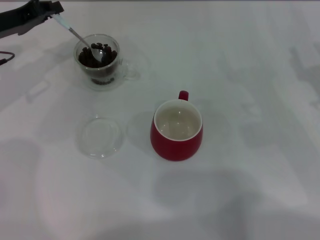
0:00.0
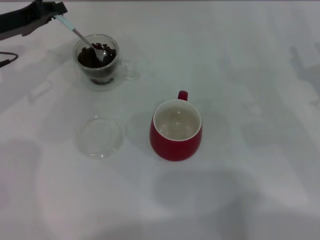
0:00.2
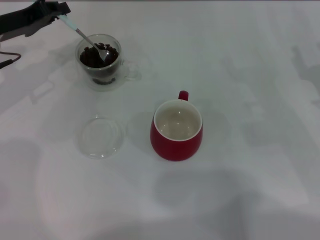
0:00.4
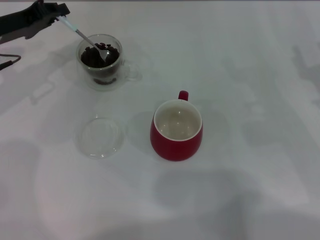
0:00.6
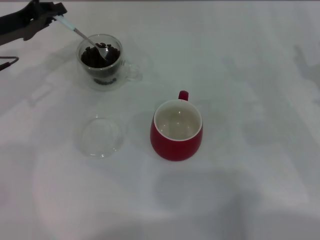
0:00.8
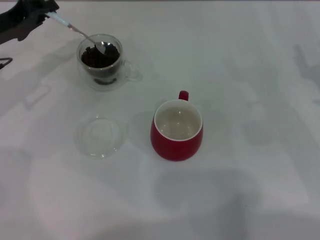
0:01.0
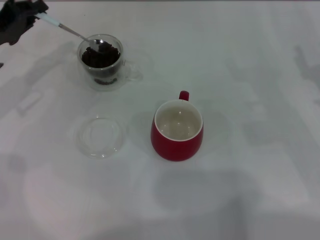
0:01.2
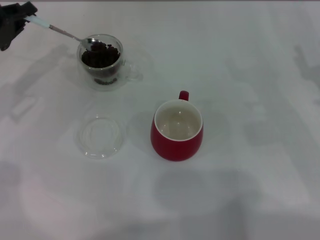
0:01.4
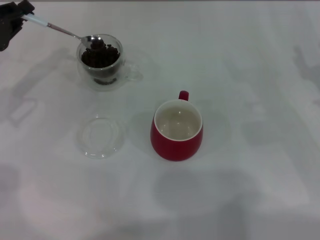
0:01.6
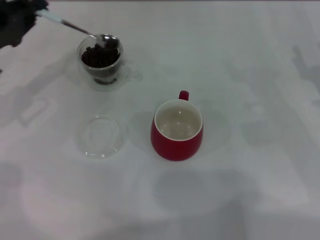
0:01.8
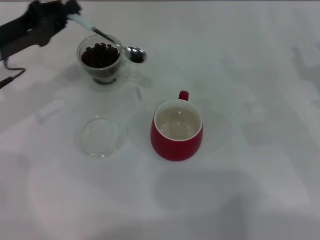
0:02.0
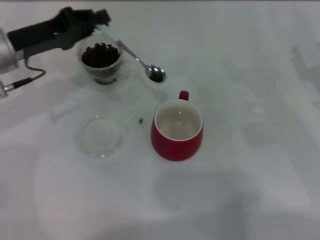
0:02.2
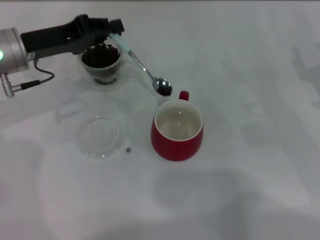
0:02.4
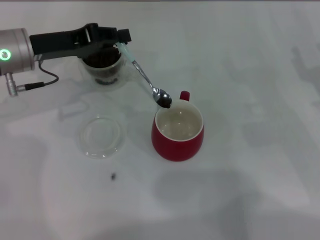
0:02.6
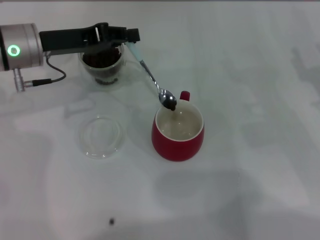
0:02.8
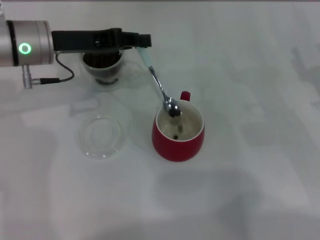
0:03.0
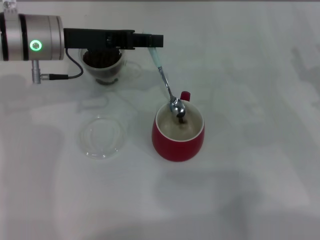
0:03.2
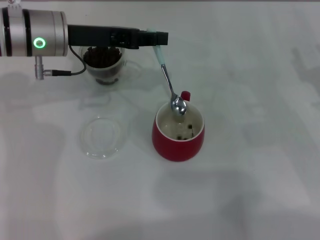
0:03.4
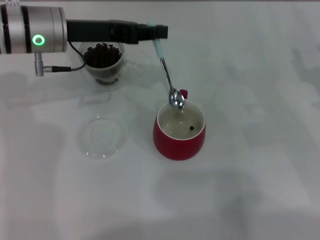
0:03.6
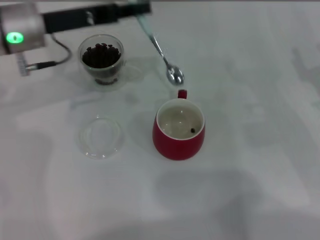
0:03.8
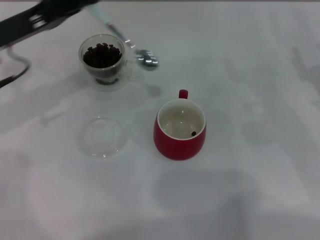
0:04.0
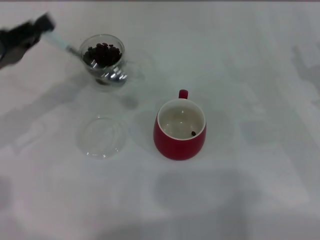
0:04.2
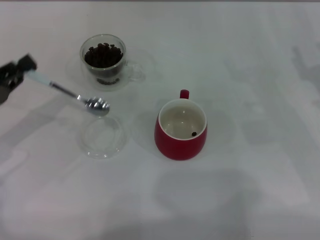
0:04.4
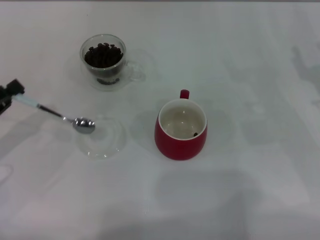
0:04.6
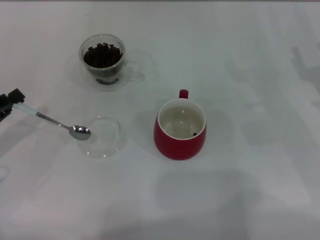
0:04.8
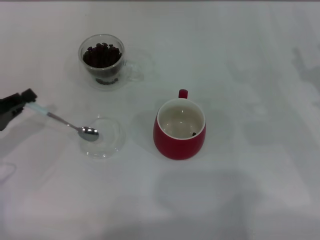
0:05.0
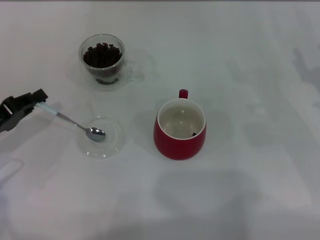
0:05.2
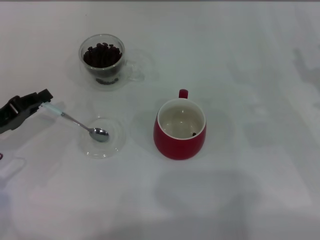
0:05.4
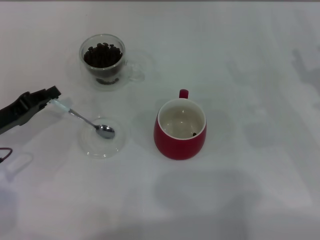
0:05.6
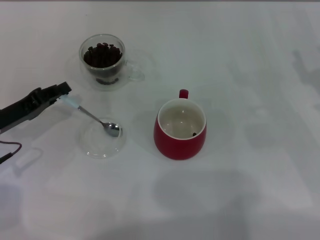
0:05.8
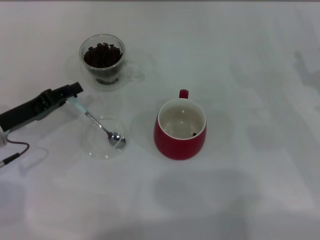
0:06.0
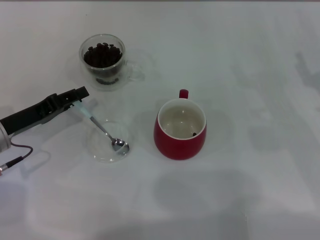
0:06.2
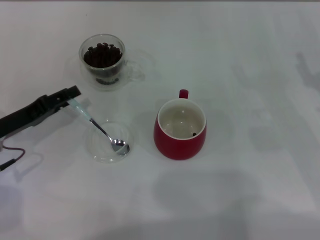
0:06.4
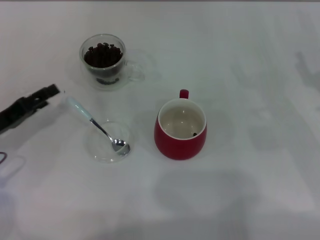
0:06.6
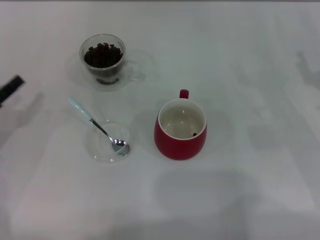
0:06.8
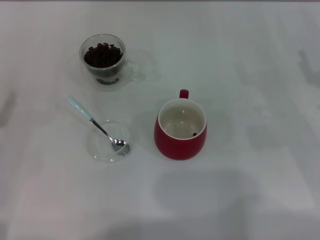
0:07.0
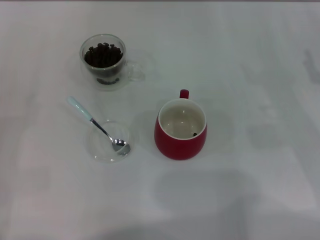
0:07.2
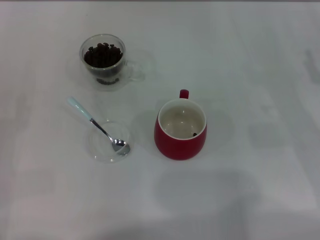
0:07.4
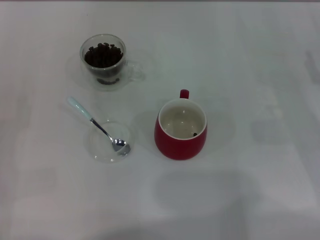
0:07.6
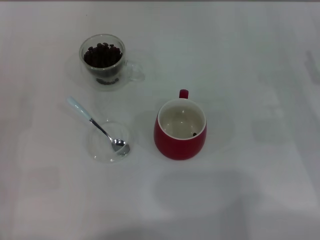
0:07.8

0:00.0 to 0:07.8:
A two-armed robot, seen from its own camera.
Task of the whole recording: Use a blue spoon to take out the coffee beans from the glass and pour them into the red cup.
0:00.0 to 0:01.6: The left gripper travels backward by approximately 5 cm.
0:01.6 to 0:03.2: The left gripper travels to the right by some 15 cm.
0:03.2 to 0:04.6: The left gripper shifts some 25 cm to the left, backward and downward.
0:04.6 to 0:06.2: The left gripper moves to the right, about 5 cm.
0:06.2 to 0:07.8: The left gripper moves backward and to the left, approximately 10 cm, and opens up.

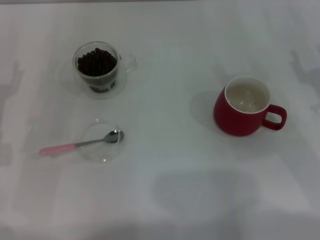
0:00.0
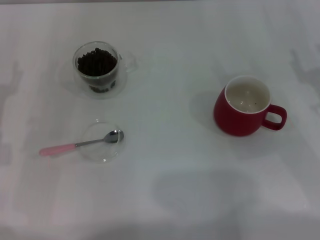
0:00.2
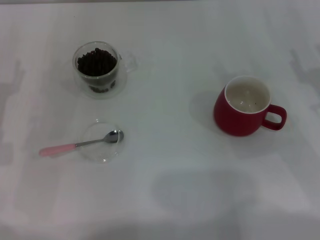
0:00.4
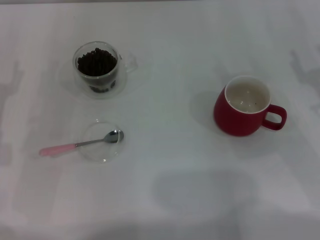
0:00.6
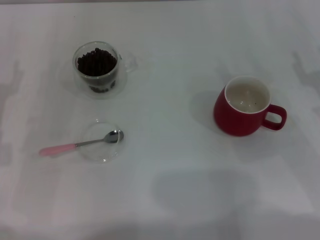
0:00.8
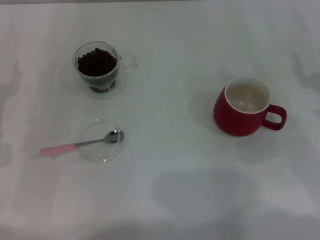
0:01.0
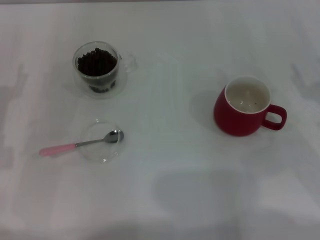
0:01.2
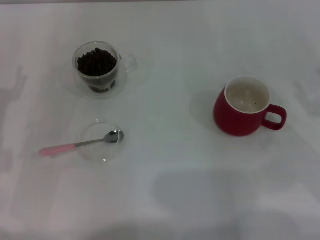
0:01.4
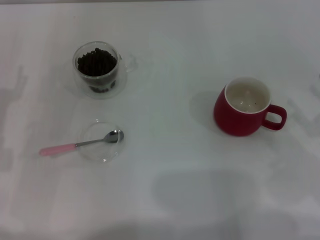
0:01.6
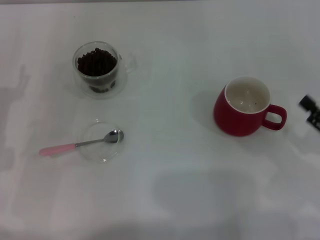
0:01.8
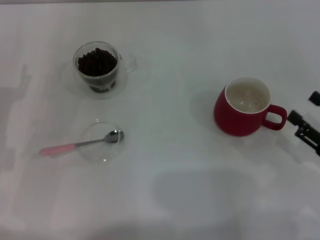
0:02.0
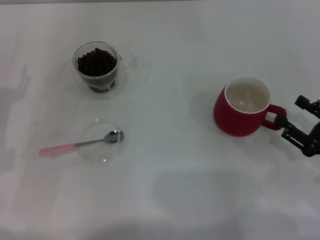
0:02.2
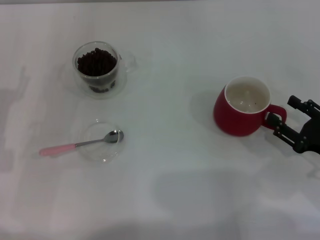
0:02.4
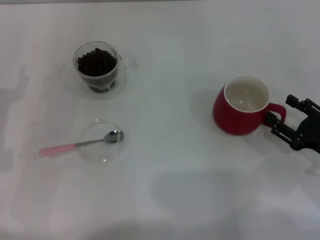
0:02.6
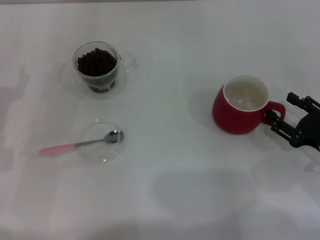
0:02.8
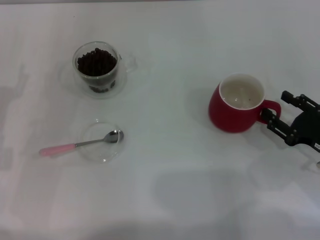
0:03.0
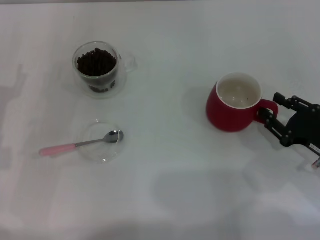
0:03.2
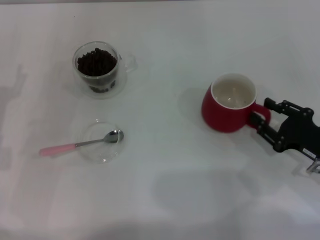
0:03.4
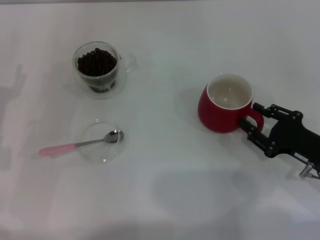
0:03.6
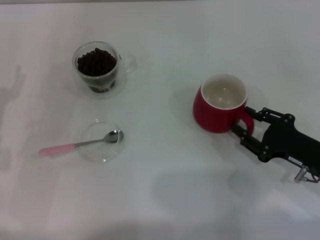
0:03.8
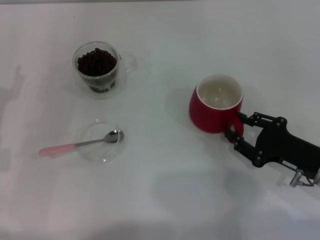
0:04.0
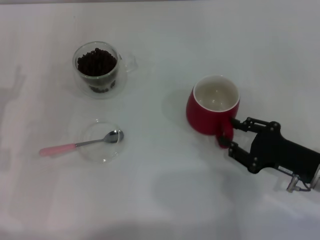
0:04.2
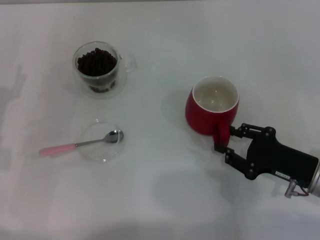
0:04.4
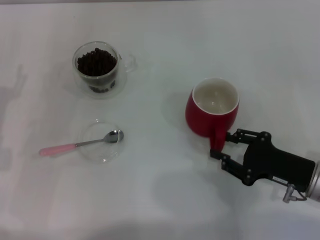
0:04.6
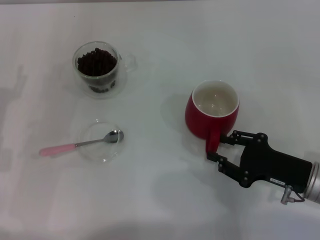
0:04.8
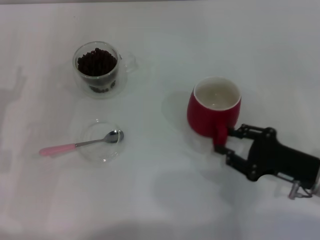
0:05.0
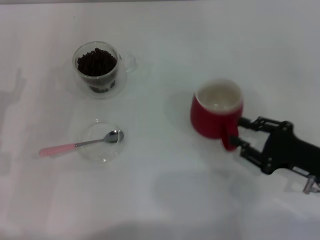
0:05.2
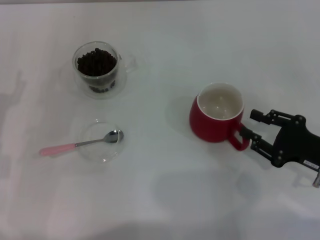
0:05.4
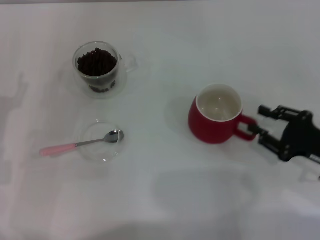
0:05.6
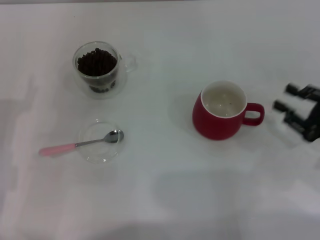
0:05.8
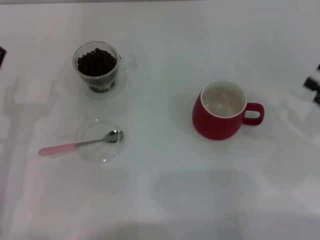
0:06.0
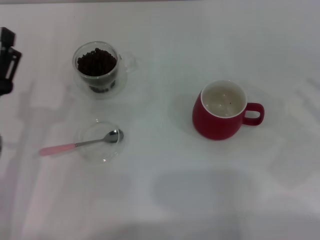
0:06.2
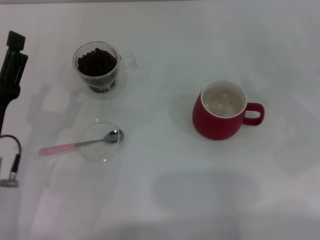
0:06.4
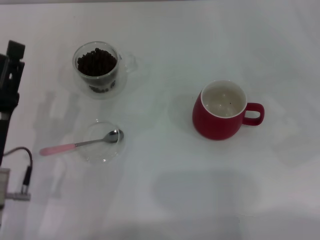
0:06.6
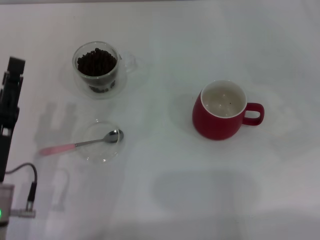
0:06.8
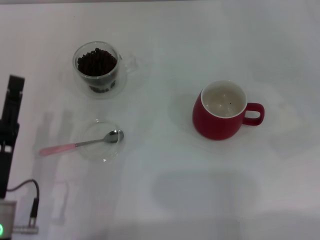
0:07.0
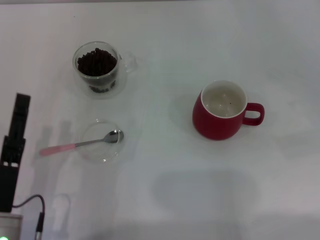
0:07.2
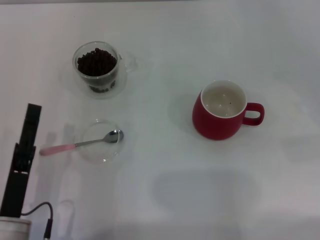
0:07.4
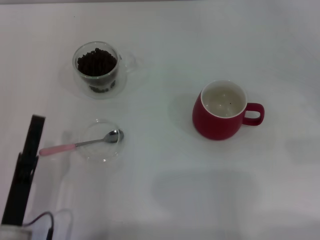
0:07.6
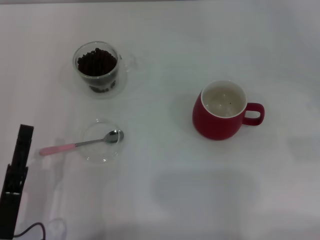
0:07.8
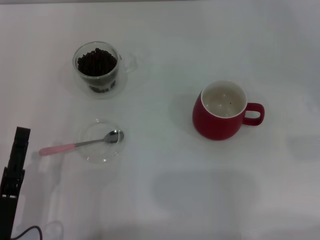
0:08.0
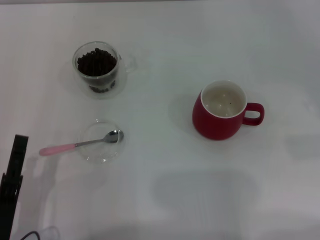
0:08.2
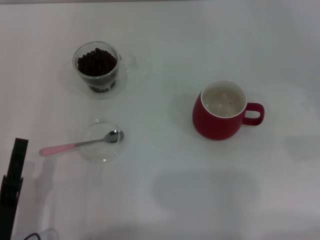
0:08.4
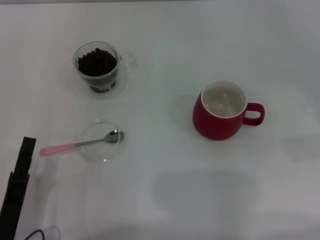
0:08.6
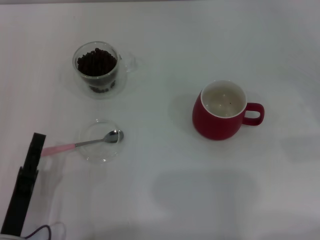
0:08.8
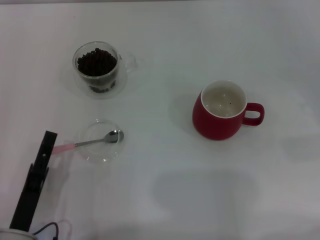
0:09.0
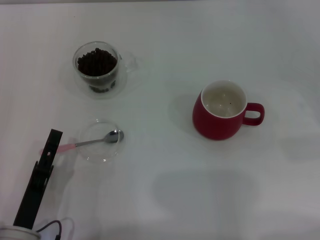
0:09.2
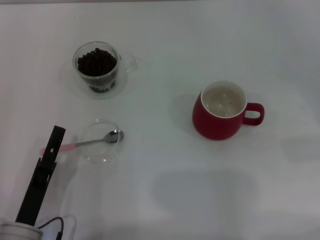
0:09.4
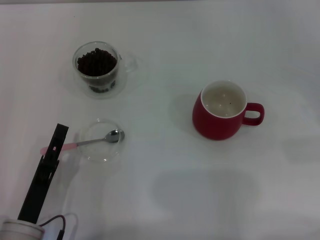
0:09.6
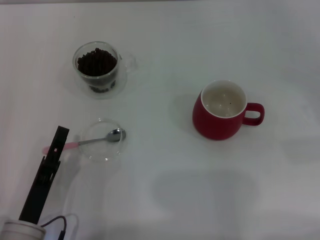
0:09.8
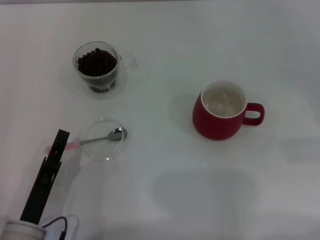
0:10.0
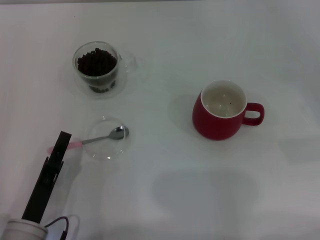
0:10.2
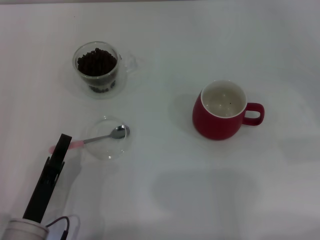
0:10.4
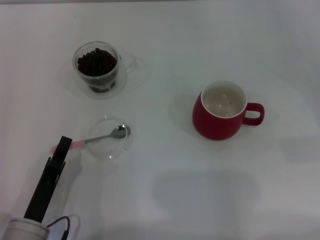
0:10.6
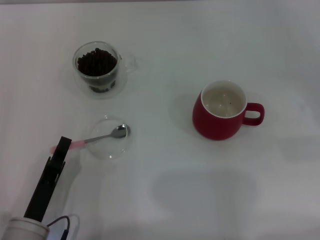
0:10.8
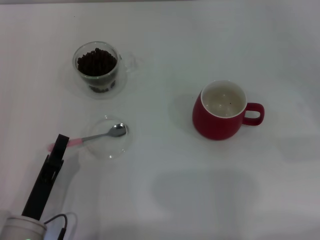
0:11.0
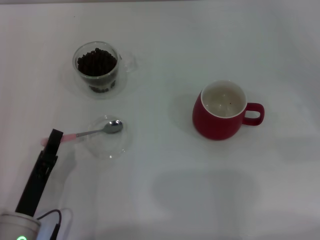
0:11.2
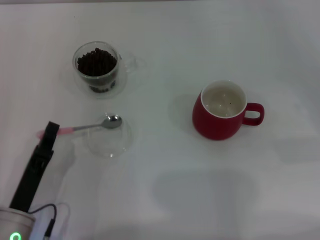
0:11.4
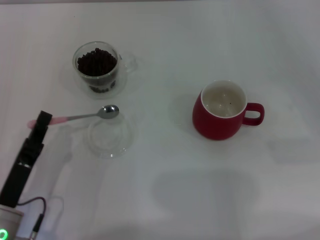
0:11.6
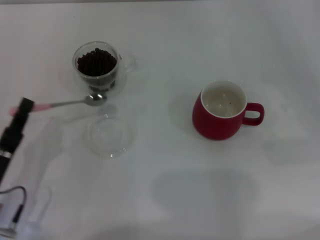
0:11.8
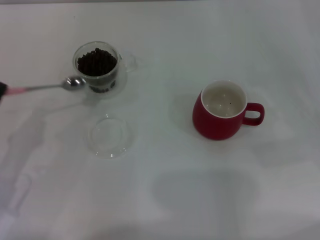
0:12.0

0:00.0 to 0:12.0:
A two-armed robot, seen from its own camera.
Task of the whole recording: Use a pink spoon to take out the coffee beans from the glass and pour them into the red cup.
Step, 0:00.0 to 0:05.6: Move the cup to the center of view with the left gripper.
Step, 0:05.8 to 0:11.6: Pick up the spoon with the right gripper.
0:01.6 to 0:03.0: The right gripper moves roughly 5 cm.
0:03.0 to 0:04.4: The right gripper closes.
0:04.4 to 0:06.0: The left gripper shifts by roughly 5 cm. Meanwhile the right gripper travels to the right and upward by some 10 cm.
0:06.0 to 0:07.6: The left gripper shifts roughly 10 cm backward and to the right.
0:07.6 to 0:09.0: The grippers make only small movements.
0:09.0 to 0:10.4: The left gripper closes up.
0:10.4 to 0:12.0: The left gripper shifts some 10 cm to the left and forward, and closes.

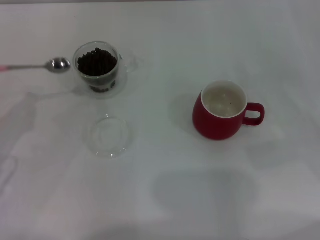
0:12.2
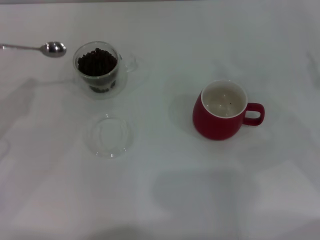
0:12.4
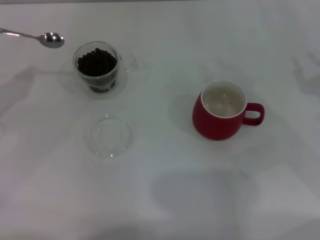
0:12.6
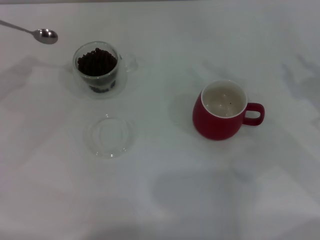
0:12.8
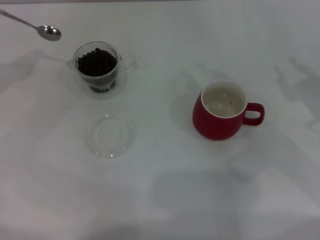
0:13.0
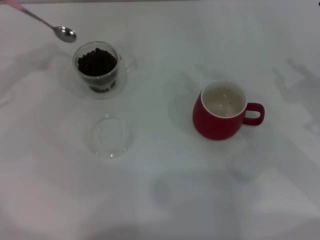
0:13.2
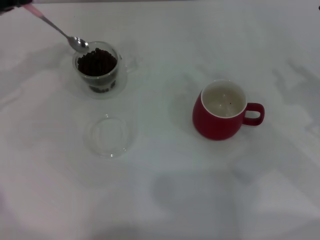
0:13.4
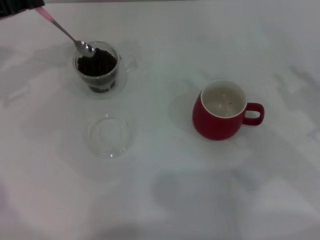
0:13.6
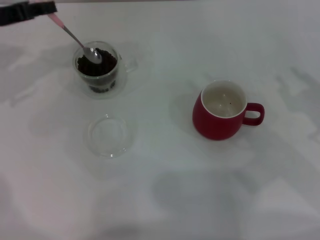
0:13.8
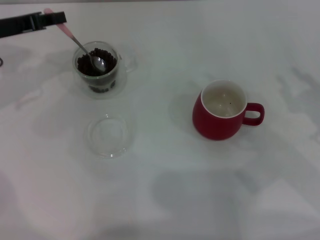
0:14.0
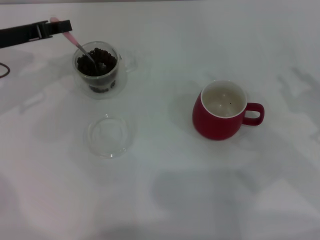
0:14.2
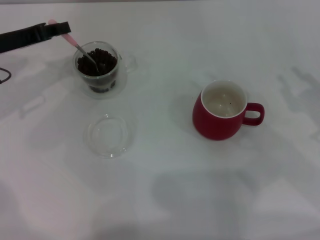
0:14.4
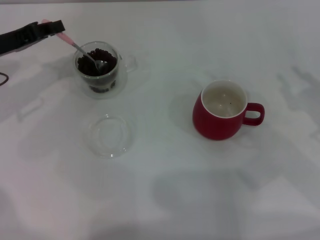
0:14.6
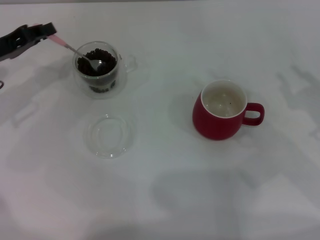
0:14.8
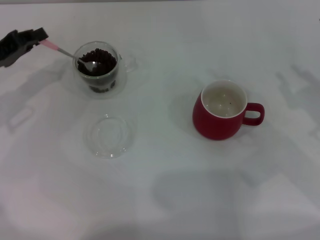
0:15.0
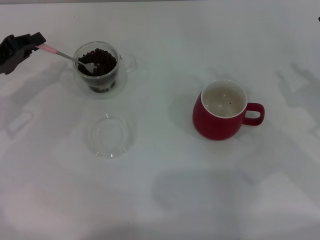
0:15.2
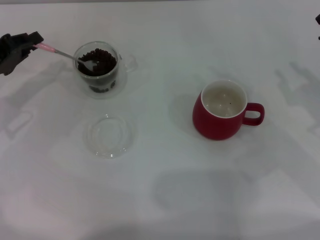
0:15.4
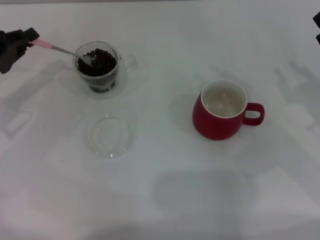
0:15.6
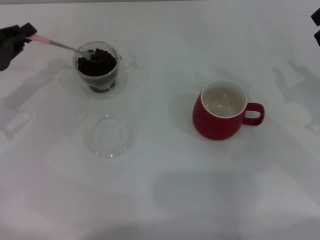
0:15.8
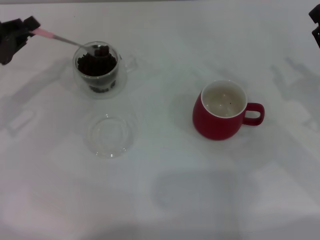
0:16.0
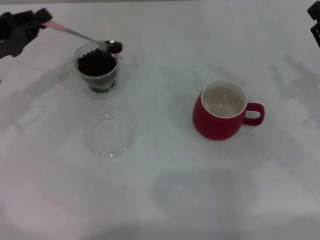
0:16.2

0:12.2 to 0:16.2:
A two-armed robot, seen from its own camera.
Task of the whole recording: Use a pink spoon to take out the coffee beans from the glass and pour them into the red cup.
0:12.2 to 0:13.6: The left gripper goes roughly 20 cm forward and upward.
0:13.6 to 0:14.8: The left gripper heads downward, covering approximately 5 cm.
0:14.8 to 0:16.2: The grippers move only a little.
